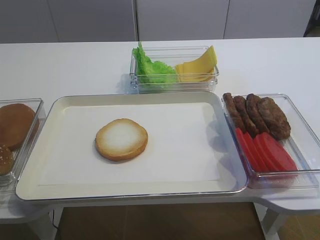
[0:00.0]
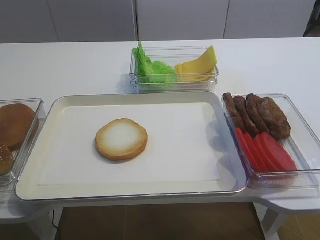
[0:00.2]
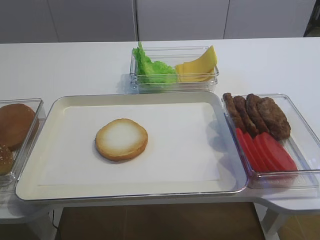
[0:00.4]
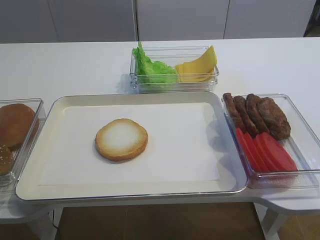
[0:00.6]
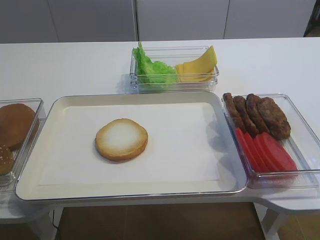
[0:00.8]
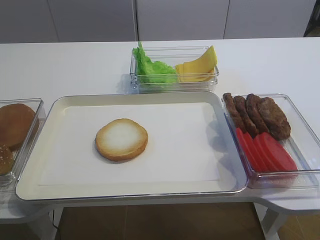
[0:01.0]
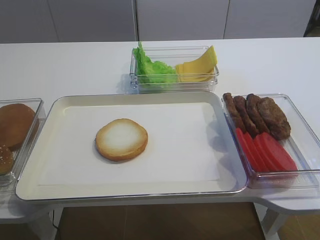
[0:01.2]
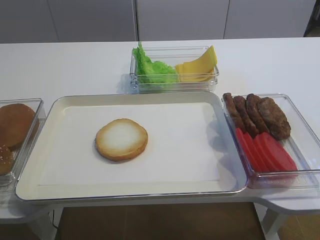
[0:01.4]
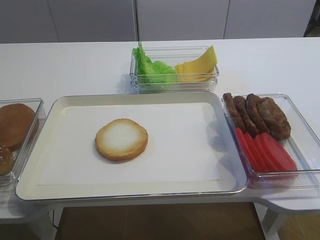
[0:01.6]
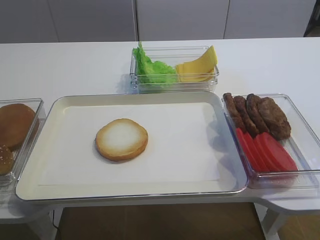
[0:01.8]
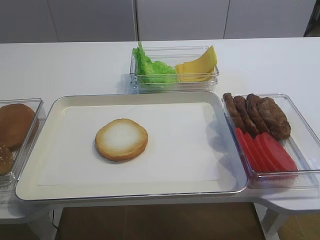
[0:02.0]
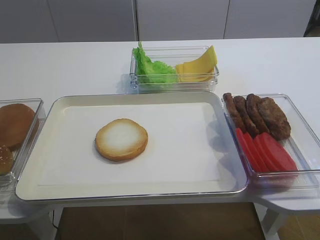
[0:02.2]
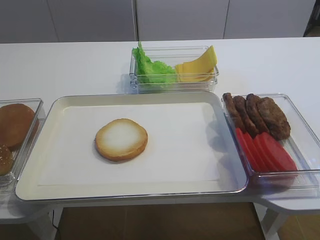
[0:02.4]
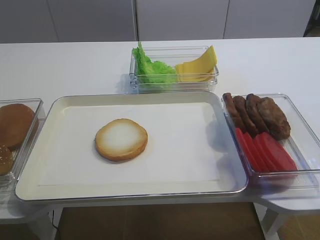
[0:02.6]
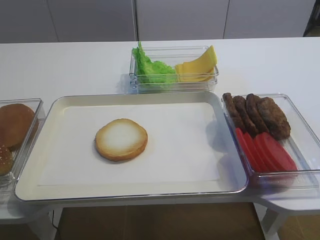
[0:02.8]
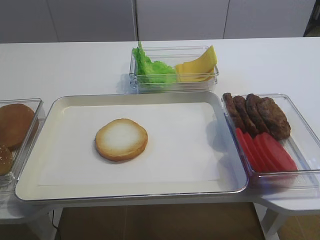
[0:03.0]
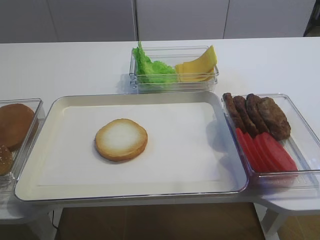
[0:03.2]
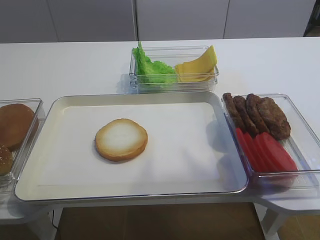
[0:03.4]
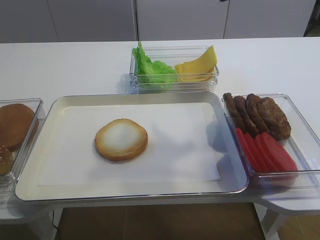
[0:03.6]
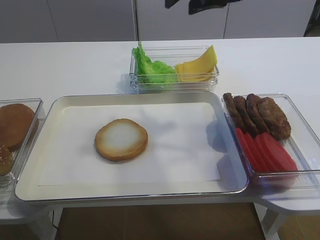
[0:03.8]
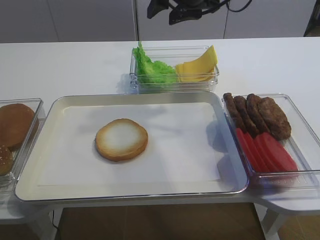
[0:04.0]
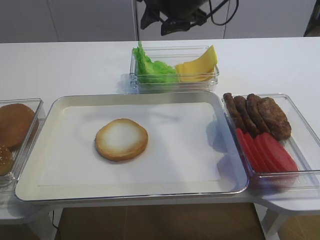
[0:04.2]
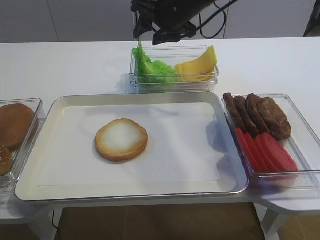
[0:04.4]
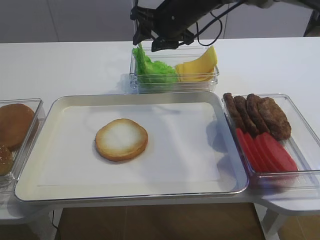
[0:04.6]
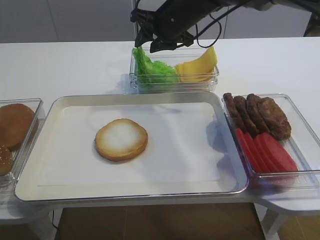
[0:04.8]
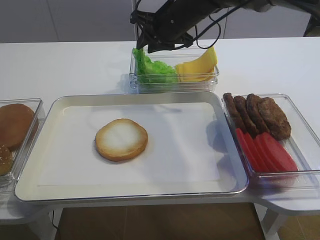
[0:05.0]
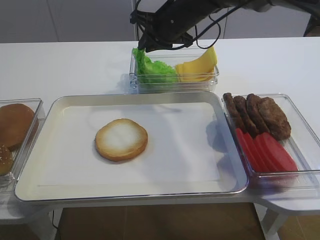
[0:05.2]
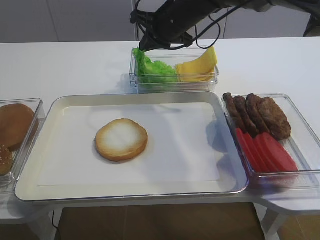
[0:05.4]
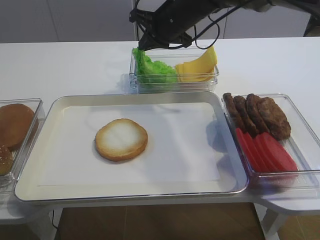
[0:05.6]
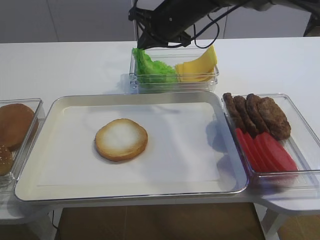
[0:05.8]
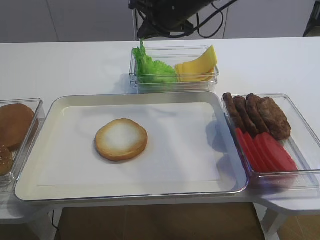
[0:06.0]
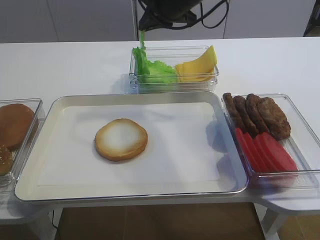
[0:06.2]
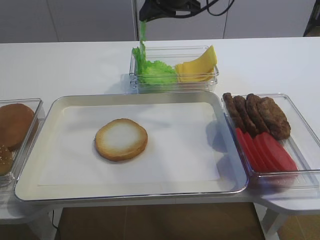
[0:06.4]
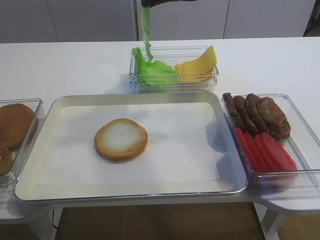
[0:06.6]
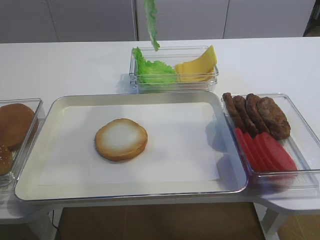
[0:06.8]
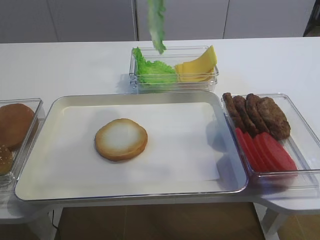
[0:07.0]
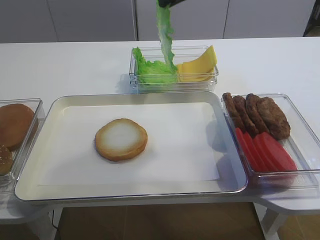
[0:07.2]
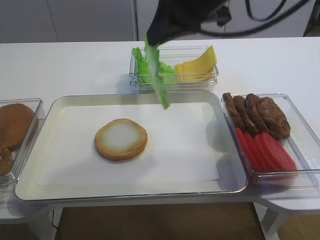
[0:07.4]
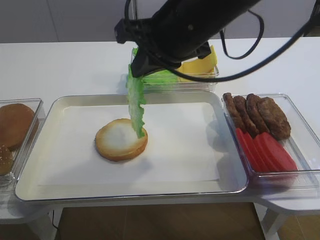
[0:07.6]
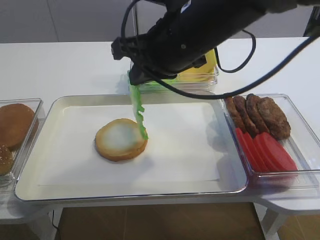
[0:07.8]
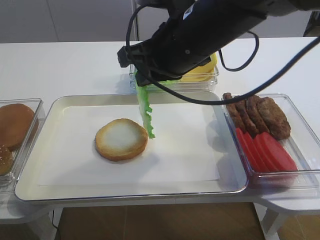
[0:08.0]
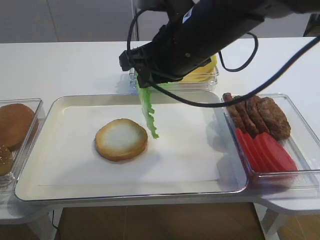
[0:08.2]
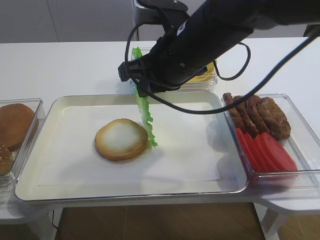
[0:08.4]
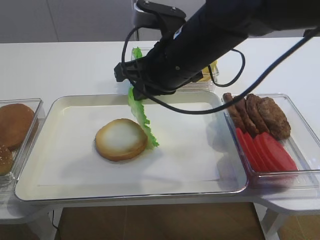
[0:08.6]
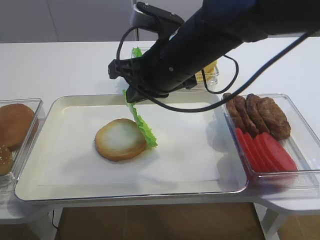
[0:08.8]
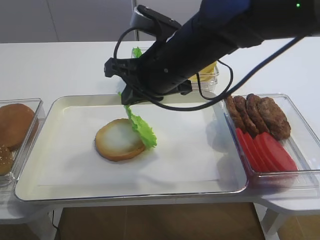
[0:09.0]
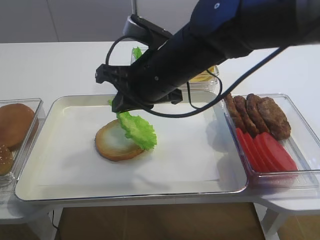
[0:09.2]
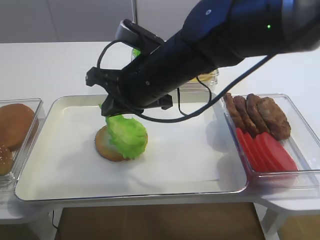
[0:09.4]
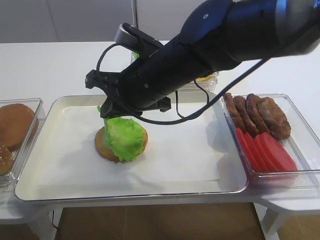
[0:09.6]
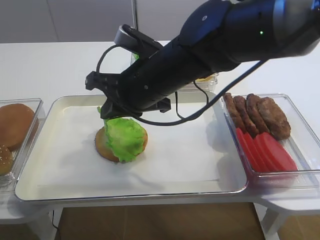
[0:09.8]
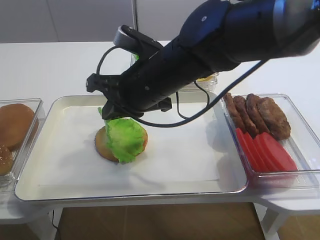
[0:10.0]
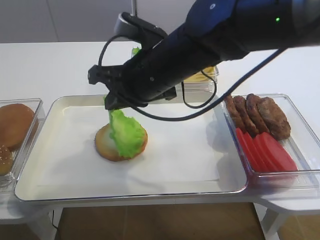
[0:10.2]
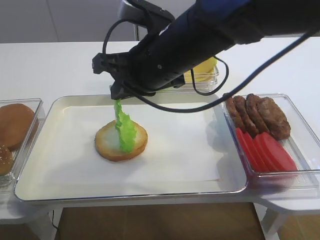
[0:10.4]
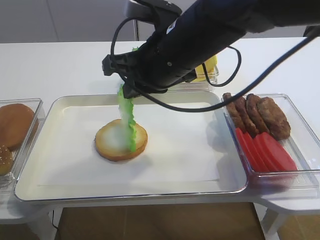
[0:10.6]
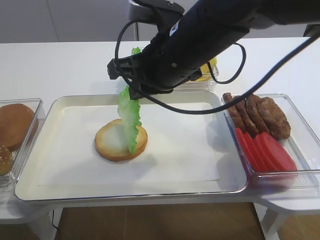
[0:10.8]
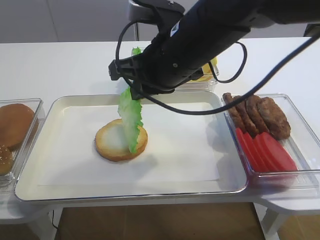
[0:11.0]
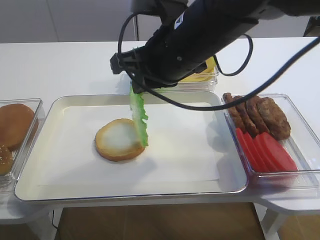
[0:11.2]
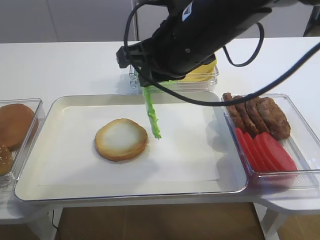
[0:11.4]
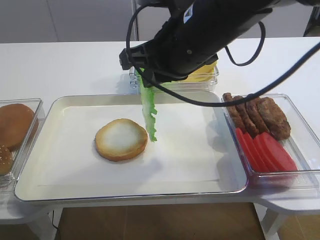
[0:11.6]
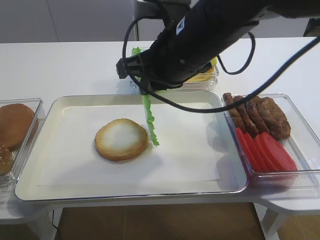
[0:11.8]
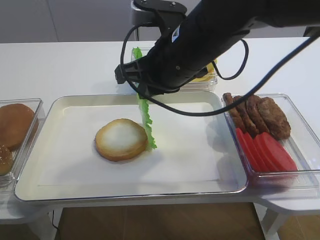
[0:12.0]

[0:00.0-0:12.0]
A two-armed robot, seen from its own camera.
Step, 0:00.0 to 0:06.6: Pick up the lettuce leaf with the right gripper.
0:01.6 to 0:03.0: The right gripper travels forward and upward by about 25 cm.
0:03.0 to 0:04.4: The right gripper moves forward, to the left and downward, some 35 cm.
0:04.4 to 0:06.0: The right gripper closes.
0:06.0 to 0:07.6: The right gripper goes roughly 15 cm backward.
0:07.6 to 0:09.0: The right gripper heads downward, covering approximately 5 cm.
0:09.0 to 0:12.0: The grippers move only a little.

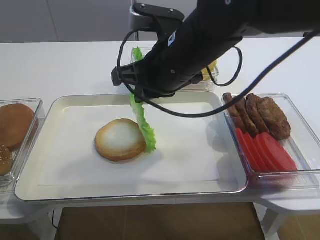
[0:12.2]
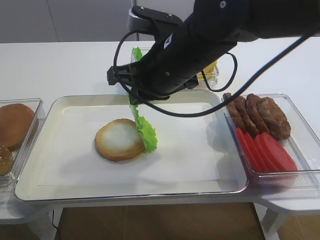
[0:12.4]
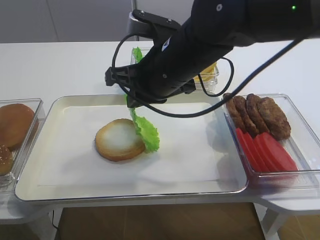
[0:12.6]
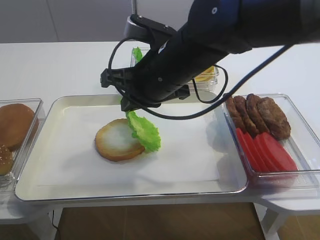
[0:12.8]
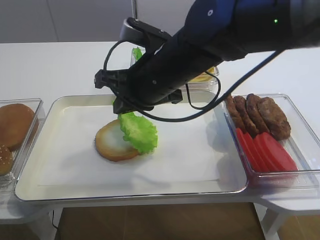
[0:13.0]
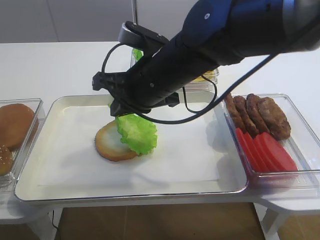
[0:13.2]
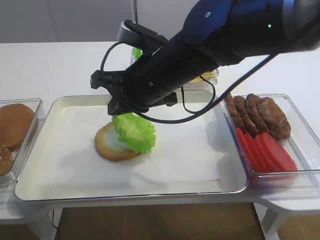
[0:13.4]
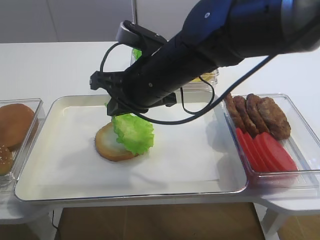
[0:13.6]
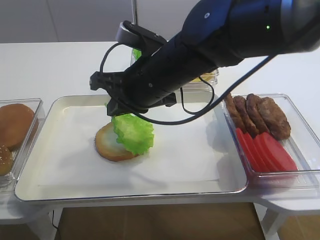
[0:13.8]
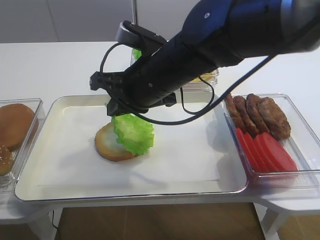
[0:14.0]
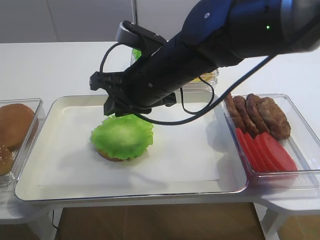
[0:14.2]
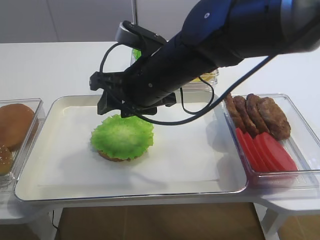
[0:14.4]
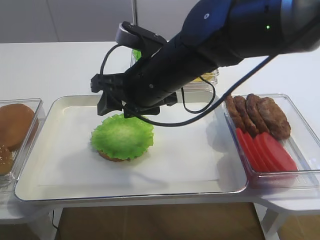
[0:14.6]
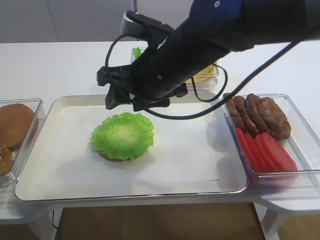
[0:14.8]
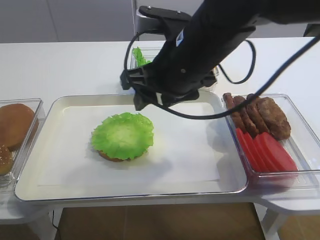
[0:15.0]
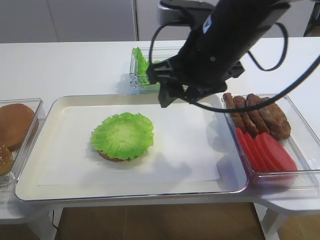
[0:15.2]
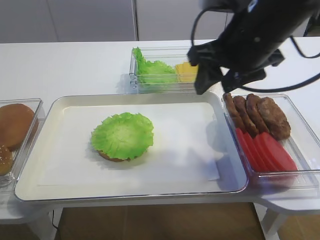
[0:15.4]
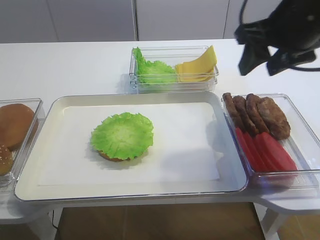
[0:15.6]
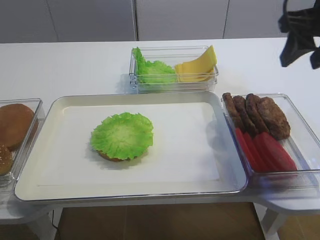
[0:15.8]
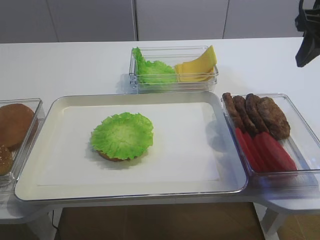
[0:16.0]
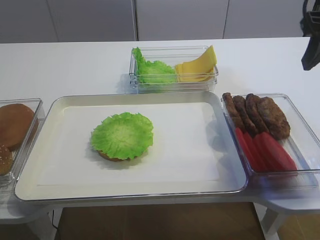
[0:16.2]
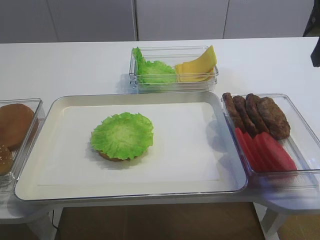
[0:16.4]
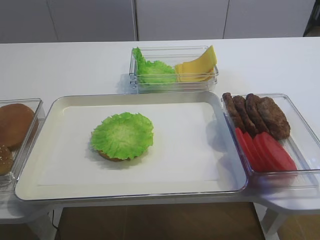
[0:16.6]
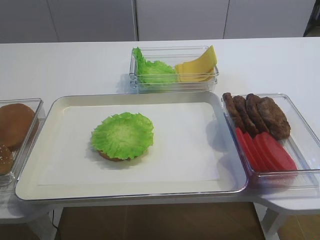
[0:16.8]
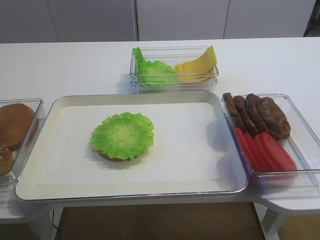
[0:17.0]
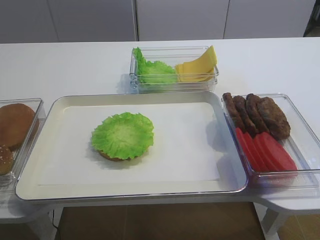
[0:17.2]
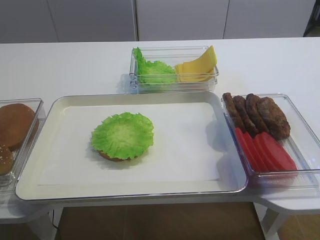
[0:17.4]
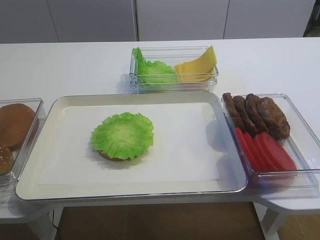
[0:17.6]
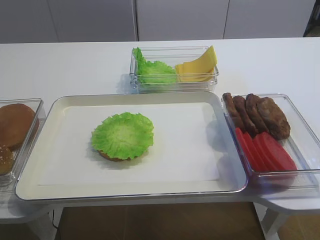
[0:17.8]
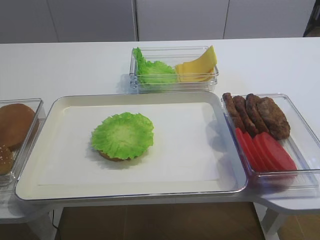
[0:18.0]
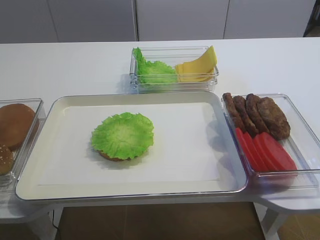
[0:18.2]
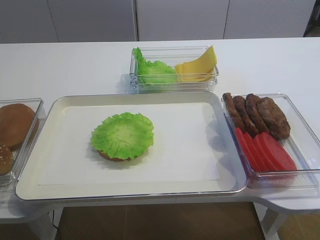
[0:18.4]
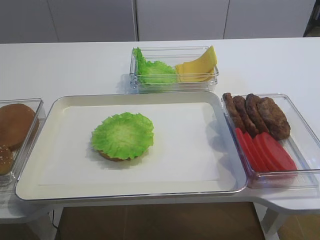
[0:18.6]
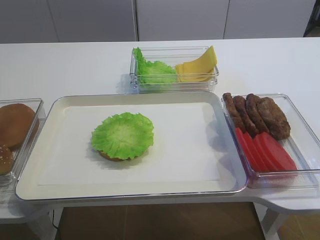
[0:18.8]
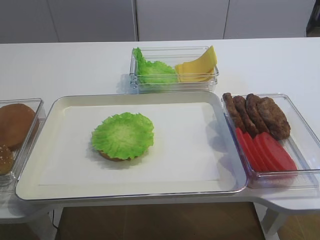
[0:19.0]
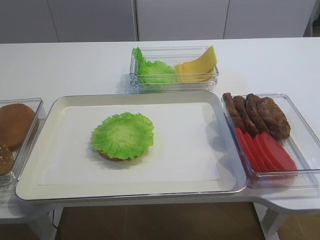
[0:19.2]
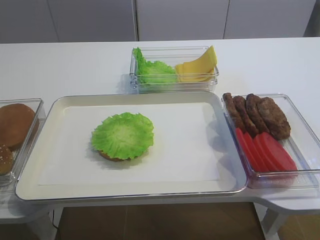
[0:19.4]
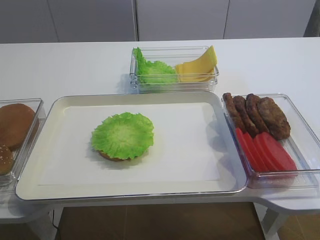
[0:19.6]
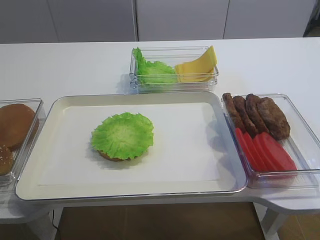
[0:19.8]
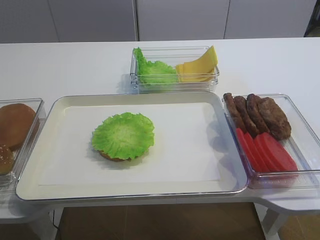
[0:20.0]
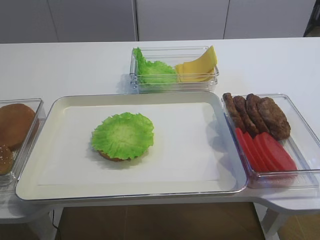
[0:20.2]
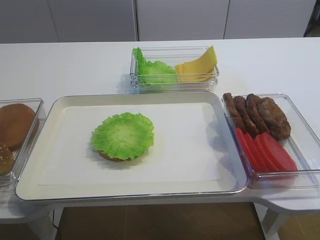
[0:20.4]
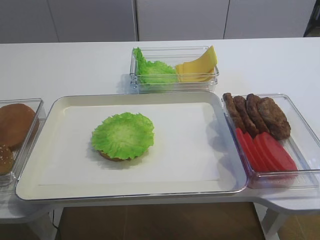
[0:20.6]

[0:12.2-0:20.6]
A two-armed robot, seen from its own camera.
Step, 0:12.2 to 0:14.6: Place the lettuce leaf on the bread slice with the right gripper.
0:12.2 to 0:13.6: The grippers stay close to where they were, moving slightly.
0:13.6 to 0:15.0: The right gripper ends up roughly 5 cm from where it was, and opens.
0:15.0 to 0:16.4: The right gripper heads to the right, covering about 20 cm.
0:16.4 to 0:17.8: The right gripper heads backward, covering roughly 25 cm.
0:17.8 to 0:19.2: The right gripper heads downward, covering roughly 10 cm.
0:19.2 to 0:20.6: Both grippers stay about where they are.

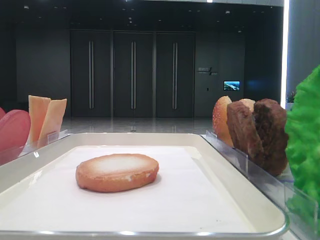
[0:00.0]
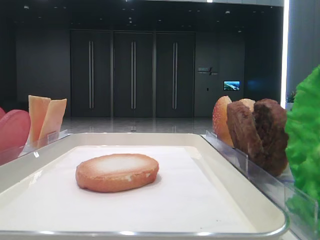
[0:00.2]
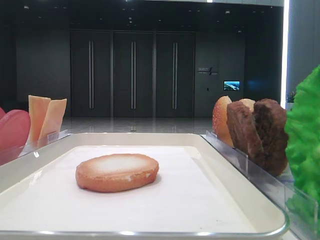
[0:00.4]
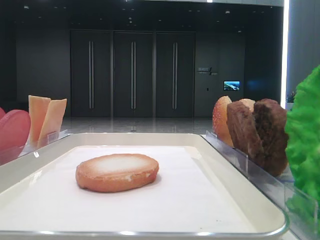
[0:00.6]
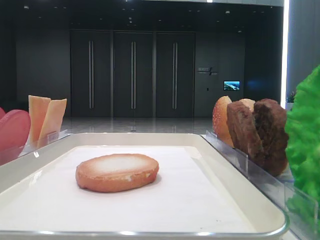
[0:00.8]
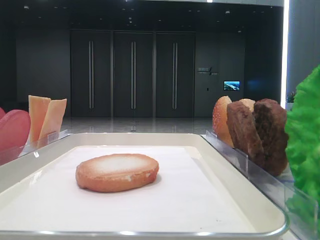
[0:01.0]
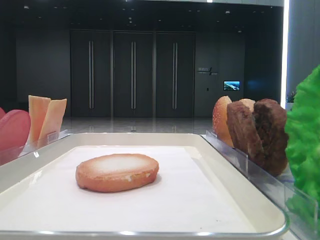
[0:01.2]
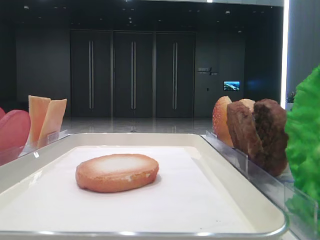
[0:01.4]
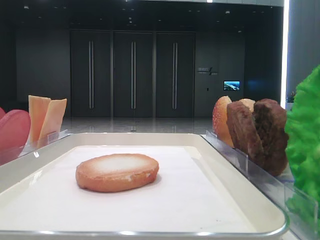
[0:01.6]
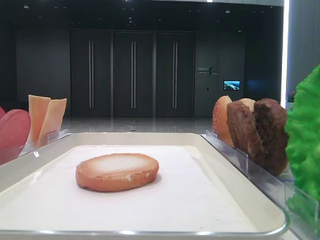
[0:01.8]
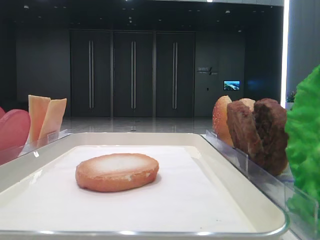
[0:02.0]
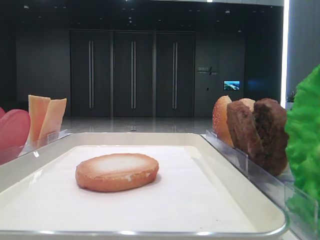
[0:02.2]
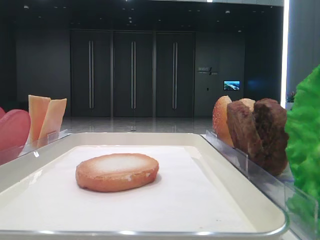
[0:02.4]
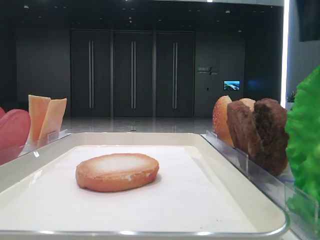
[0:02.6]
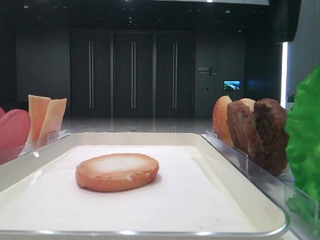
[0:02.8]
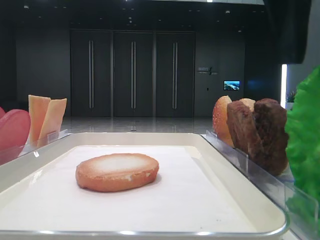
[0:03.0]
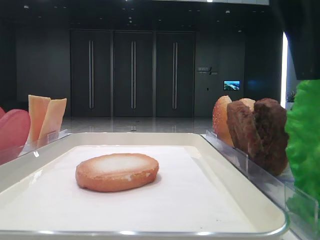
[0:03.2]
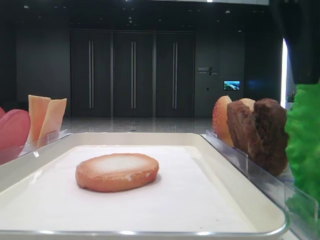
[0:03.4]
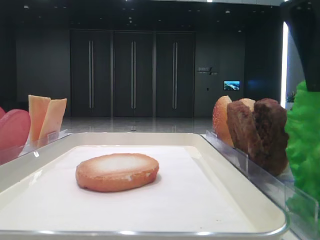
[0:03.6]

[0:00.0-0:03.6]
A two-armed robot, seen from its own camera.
0:01.8 to 0:03.6: The right gripper moves to the left, approximately 15 cm, and closes up.
